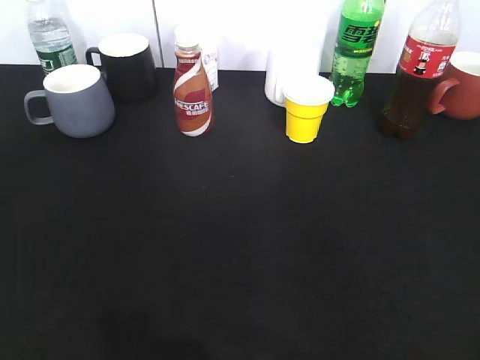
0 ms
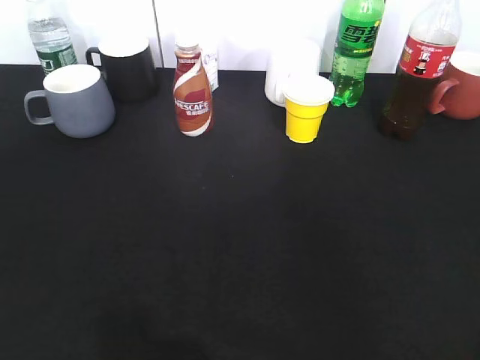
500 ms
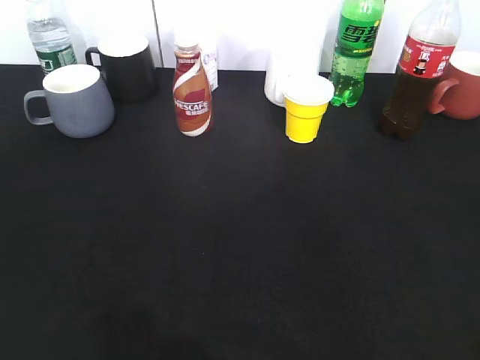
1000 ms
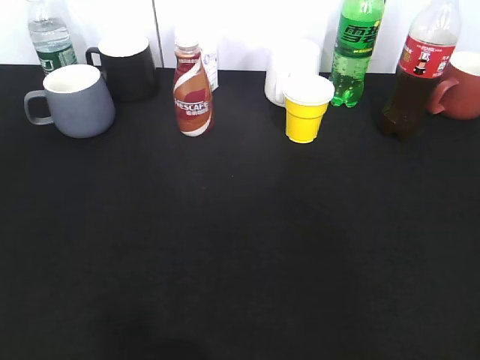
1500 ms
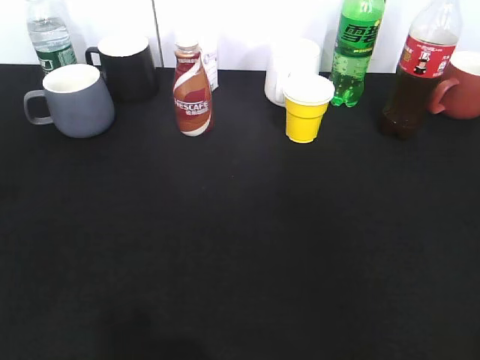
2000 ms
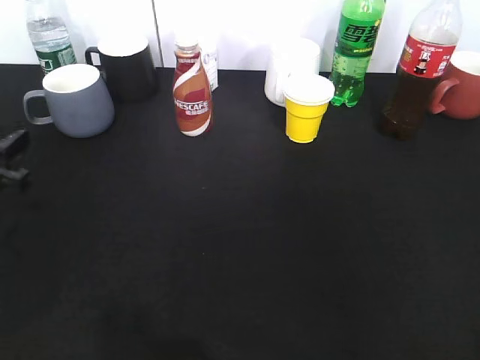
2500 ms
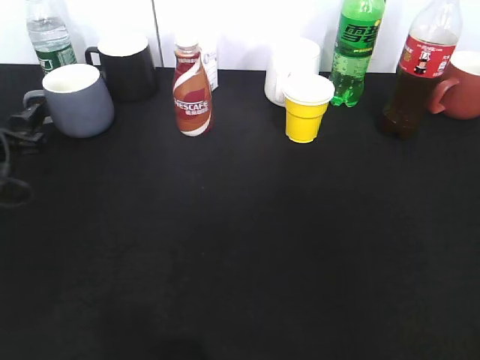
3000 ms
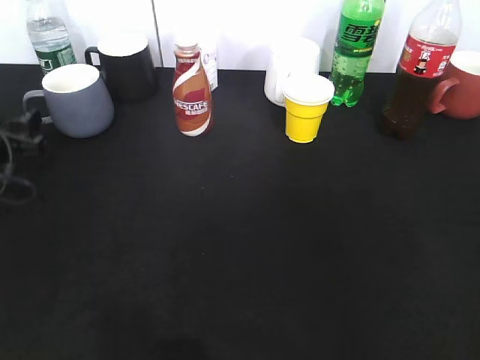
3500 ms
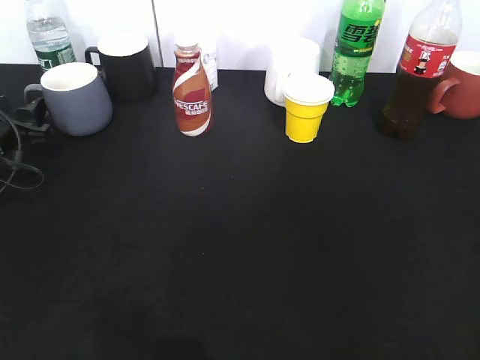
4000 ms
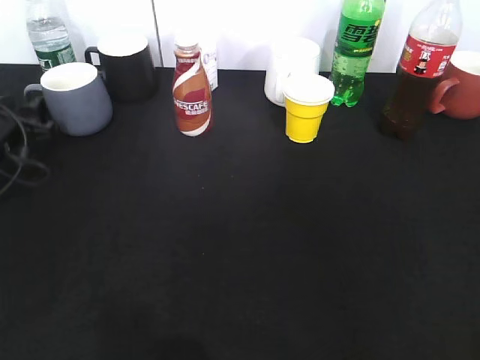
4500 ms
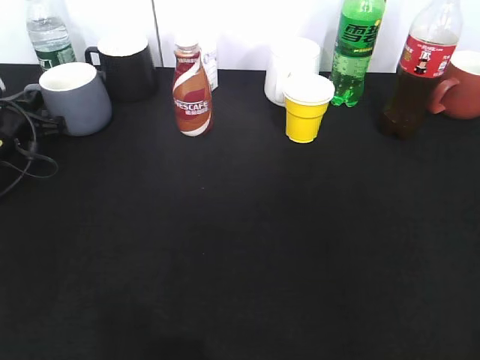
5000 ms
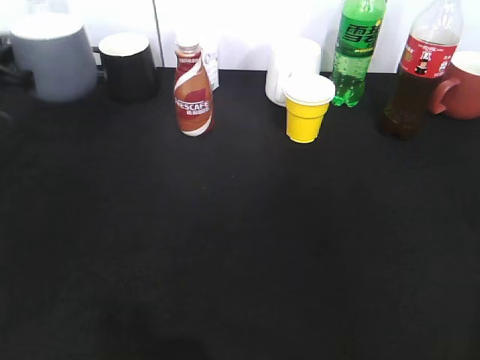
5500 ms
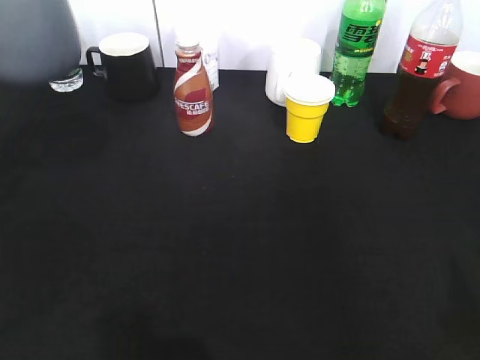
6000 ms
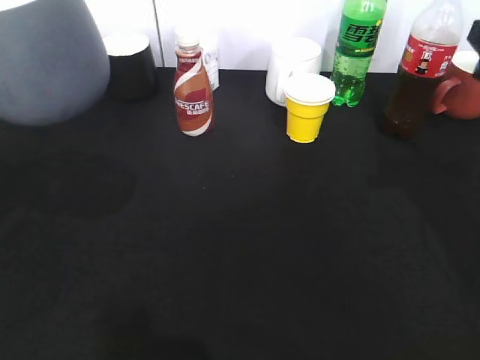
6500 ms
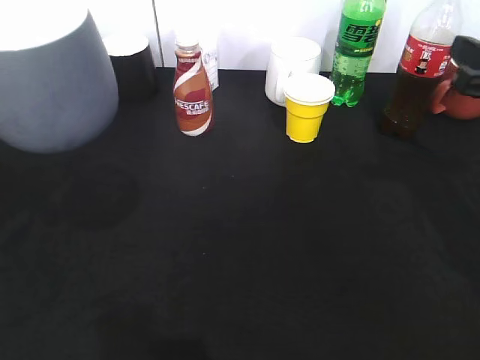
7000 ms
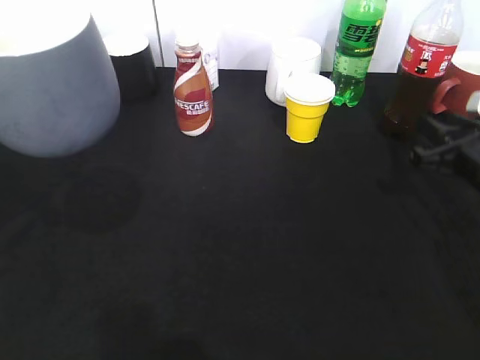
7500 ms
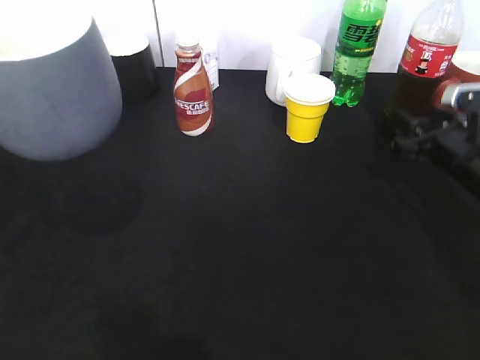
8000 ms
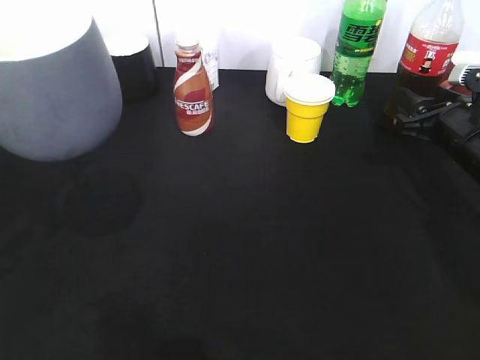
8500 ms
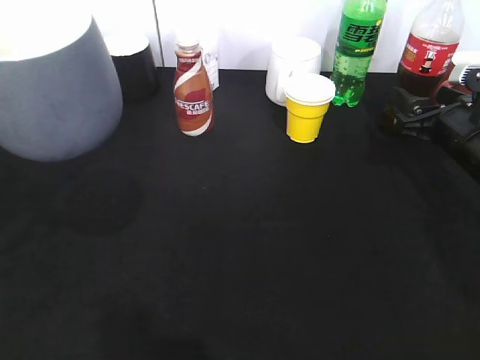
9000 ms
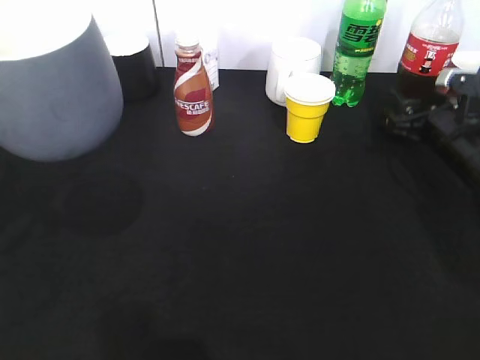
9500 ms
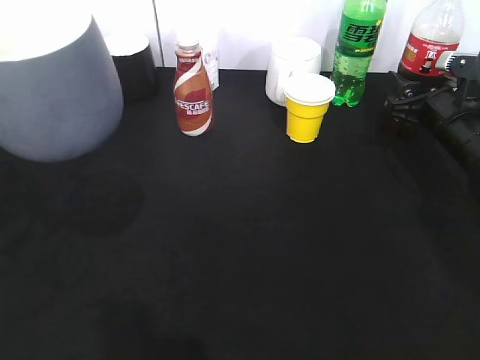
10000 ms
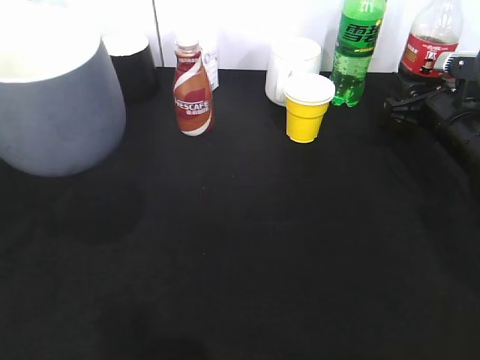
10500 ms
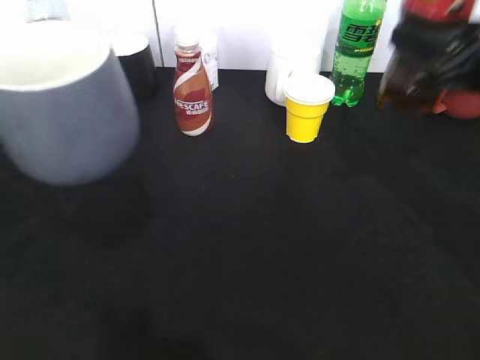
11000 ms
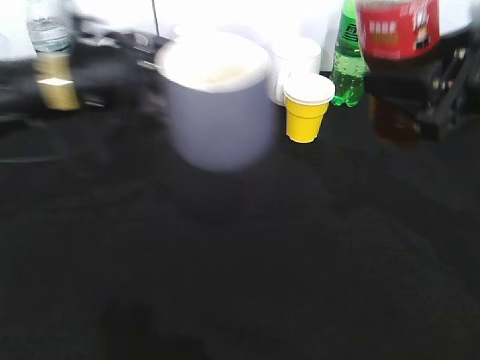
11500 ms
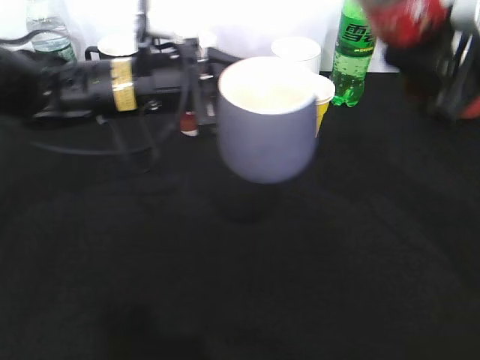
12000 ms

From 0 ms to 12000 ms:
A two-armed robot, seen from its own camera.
Step, from 1500 ms to 5000 ms: Grasp the grey cup with left gripper.
Step, from 6000 ms to 9500 ms: Grasp the bottle with cola with right gripper.
From 2000 ms to 4000 ms: The left gripper travels forward and downward by approximately 20 cm, and opens up.
From 4000 ms to 6000 ms: The left gripper is displaced upward and backward by about 20 cm, and closes its fingers, while the right gripper shifts by approximately 5 cm.
From 6000 ms to 8000 ms: The right gripper moves forward and downward, some 35 cm, and closes, then opens again. The left gripper moves backward, some 5 cm.
From 8000 ms to 10000 ms: The right gripper travels forward by roughly 5 cm.
From 10000 ms to 12000 ms: The left gripper shifts some 25 cm to the right, forward and downward. Meanwhile the right gripper shifts approximately 20 cm upward and backward, and closes its fingers.

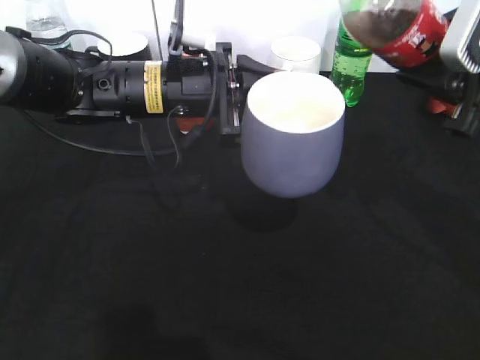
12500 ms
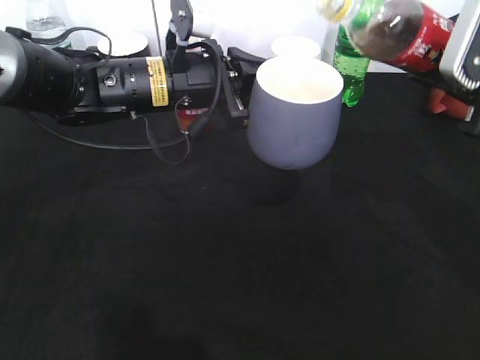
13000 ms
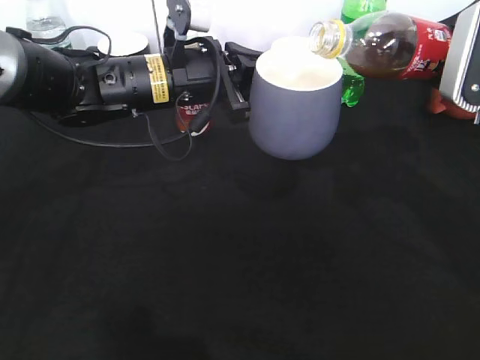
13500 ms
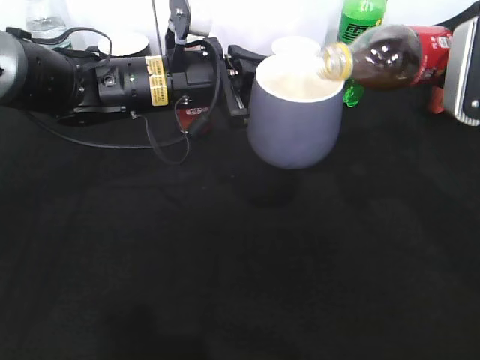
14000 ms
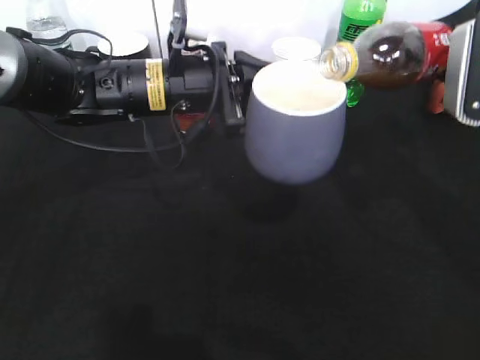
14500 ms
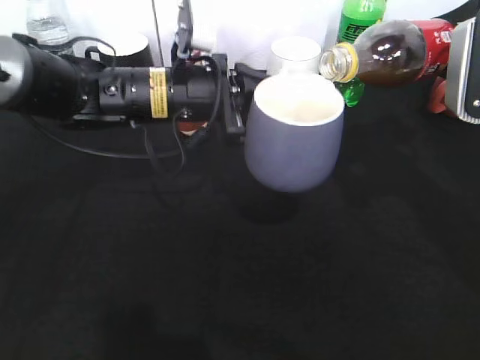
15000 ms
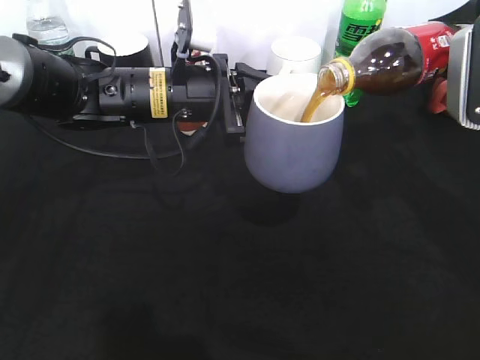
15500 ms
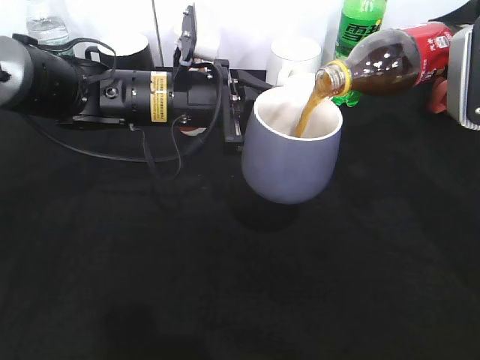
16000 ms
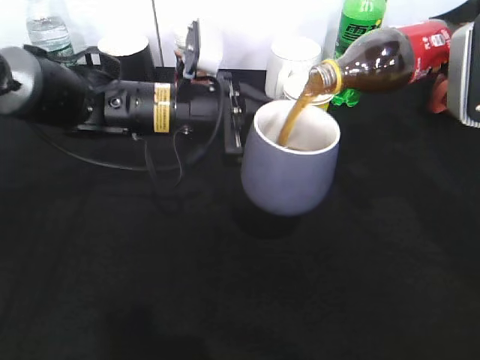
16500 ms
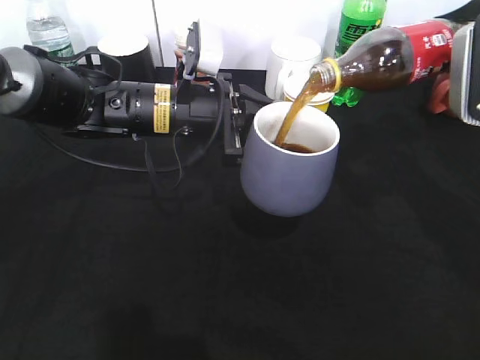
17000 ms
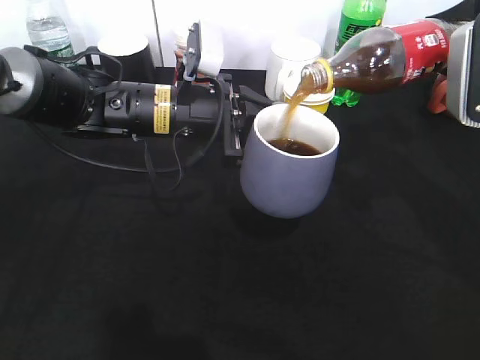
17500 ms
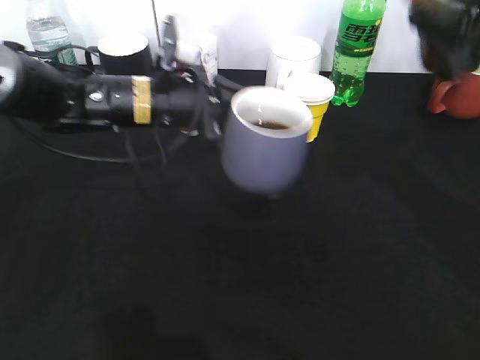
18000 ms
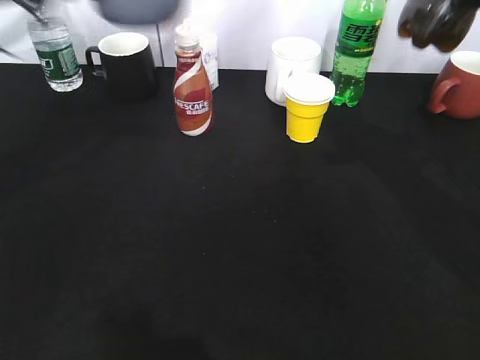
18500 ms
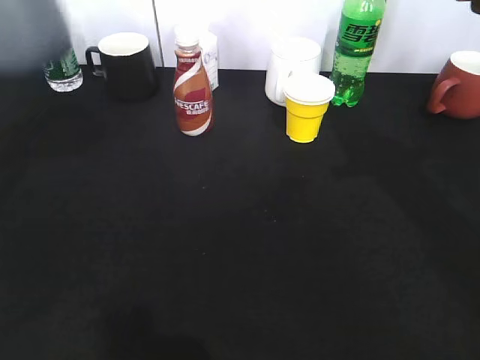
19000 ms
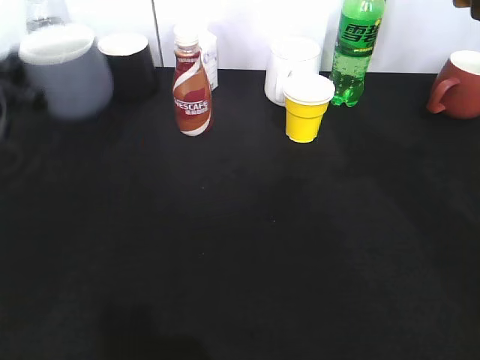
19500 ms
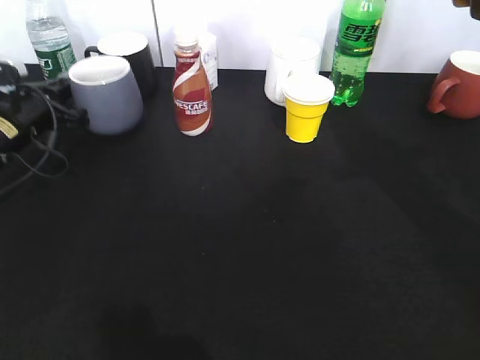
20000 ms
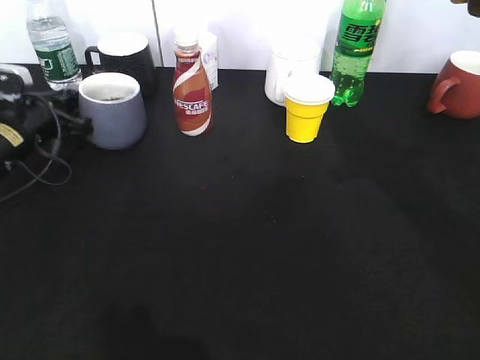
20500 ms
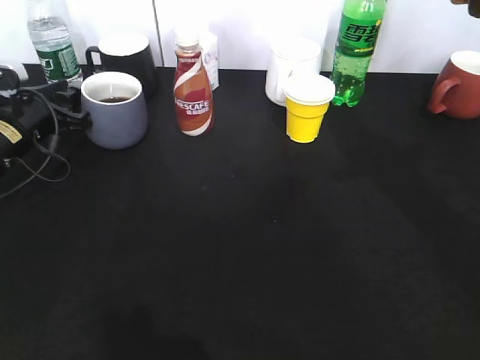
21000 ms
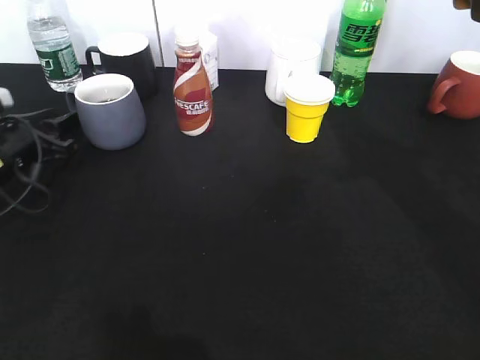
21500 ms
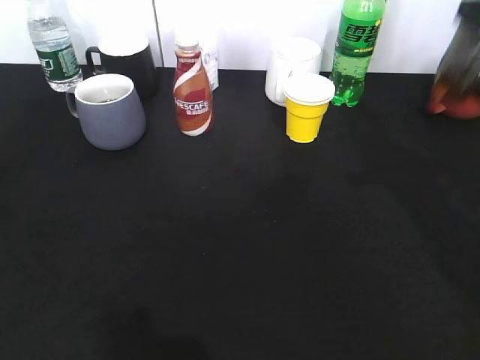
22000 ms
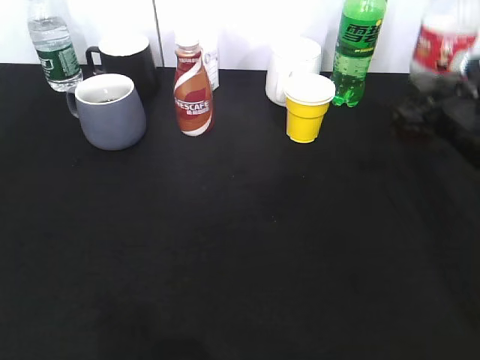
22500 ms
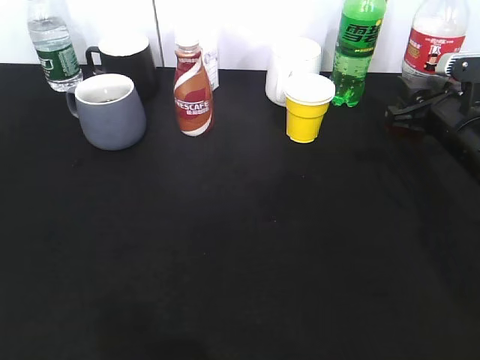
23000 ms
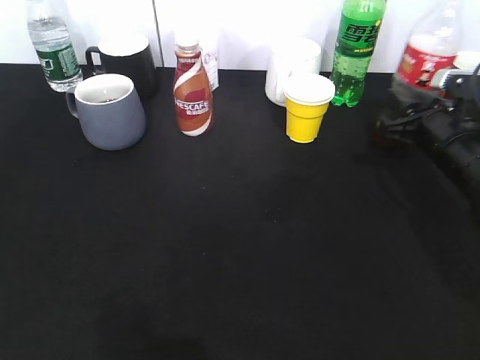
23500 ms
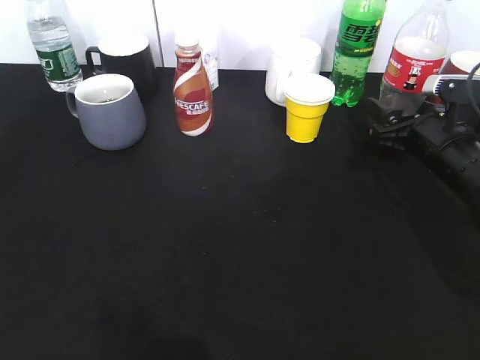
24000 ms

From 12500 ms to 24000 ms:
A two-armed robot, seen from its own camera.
Step, from 12500 ms to 17000 ms: Pour the cola from bottle to cup with right gripper.
Step, from 17500 ms to 21500 ms: Place the grey cup on the table with left gripper.
From 14500 ms to 16500 ms: The grippers move only a little.
From 16500 ms to 18500 ms: The left gripper travels upward and to the left by roughly 20 cm.
From 18500 ms to 20000 ms: The right gripper changes place by approximately 5 cm, while the left gripper travels downward by approximately 20 cm.
From 20000 ms to 22000 ms: The left gripper travels backward and upward by about 30 cm, and opens up; the right gripper is displaced downward by approximately 5 cm.
From 22000 ms to 24000 ms: The right gripper shifts approximately 20 cm downward and forward, and opens its fingers.

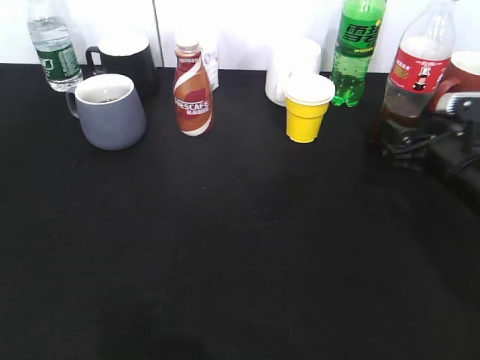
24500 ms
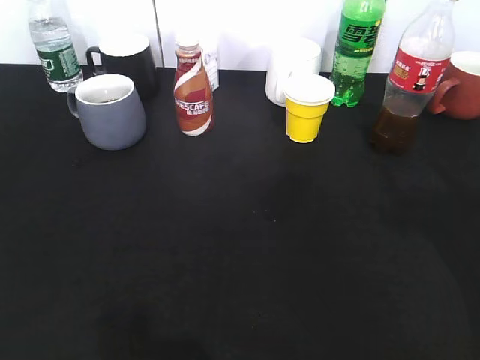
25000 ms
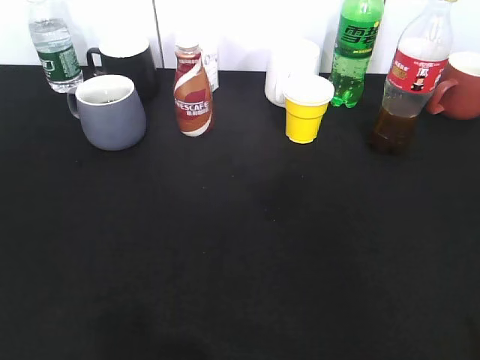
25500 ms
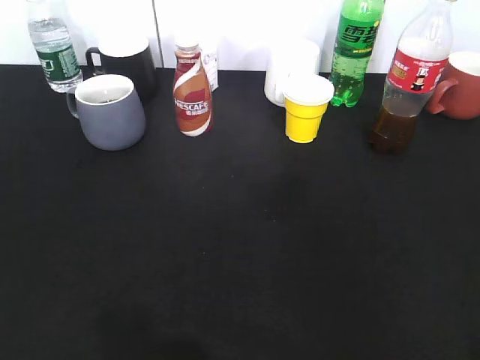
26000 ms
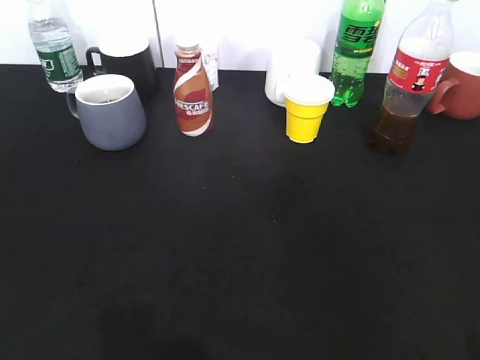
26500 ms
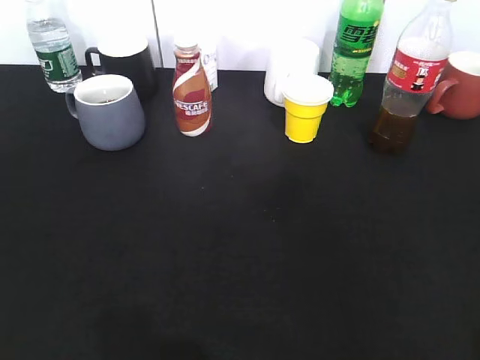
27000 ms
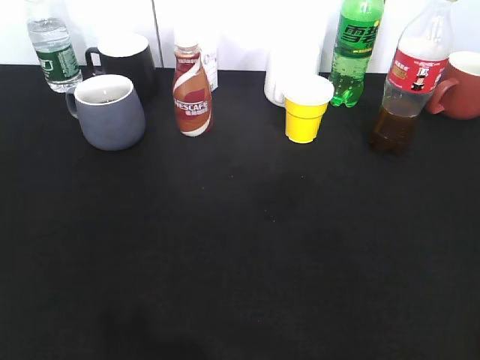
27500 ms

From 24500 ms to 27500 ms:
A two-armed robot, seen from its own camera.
From 24500 ms to 26000 ms: The right gripper heads backward and upward, covering roughly 35 cm. Meanwhile the left gripper moves backward, some 15 cm.
